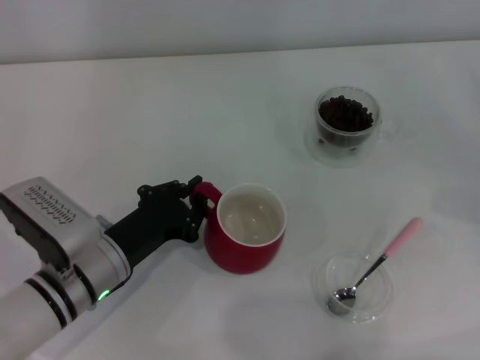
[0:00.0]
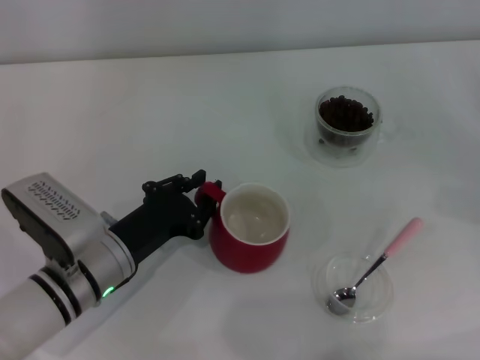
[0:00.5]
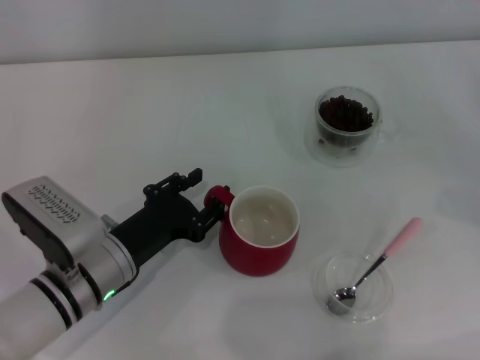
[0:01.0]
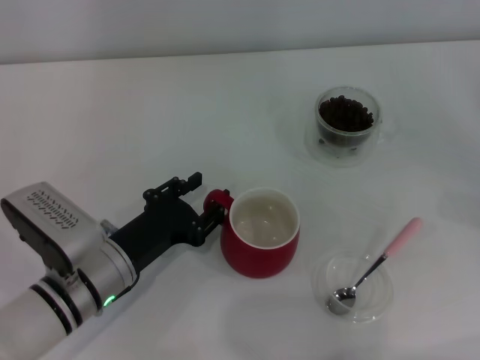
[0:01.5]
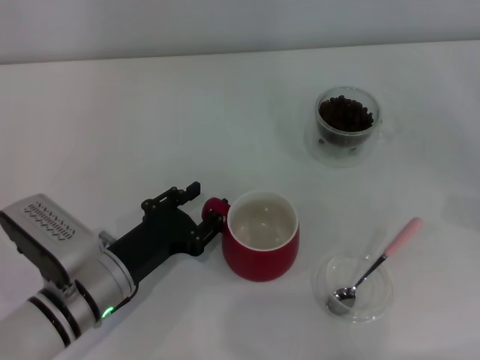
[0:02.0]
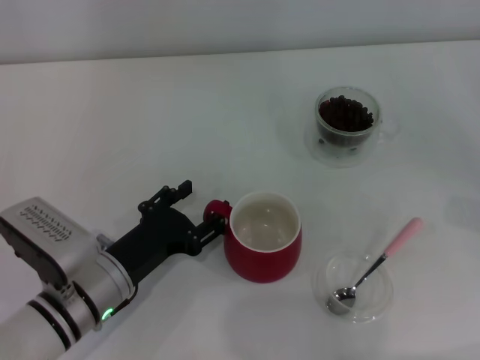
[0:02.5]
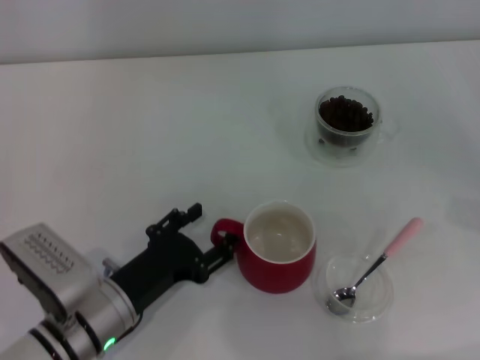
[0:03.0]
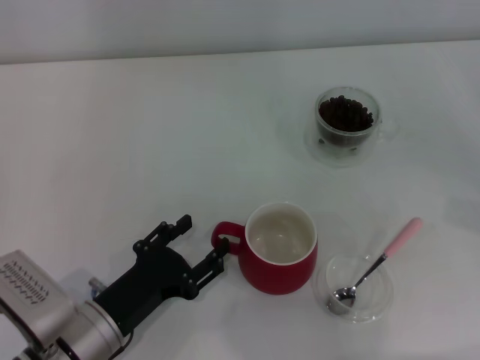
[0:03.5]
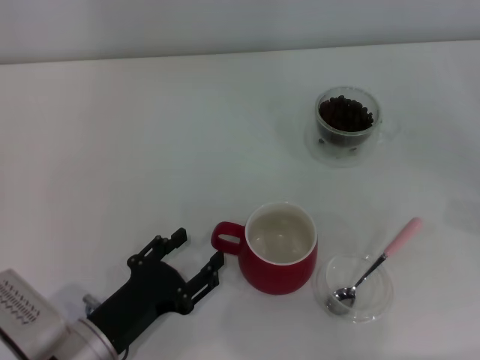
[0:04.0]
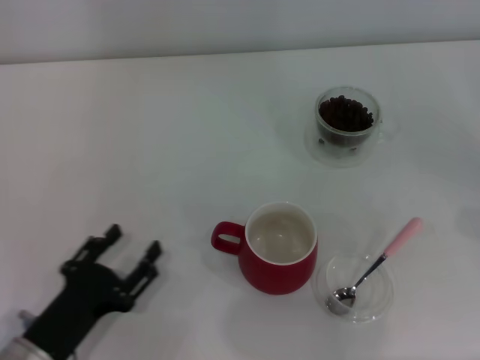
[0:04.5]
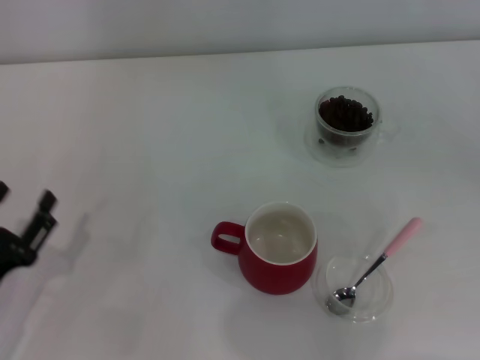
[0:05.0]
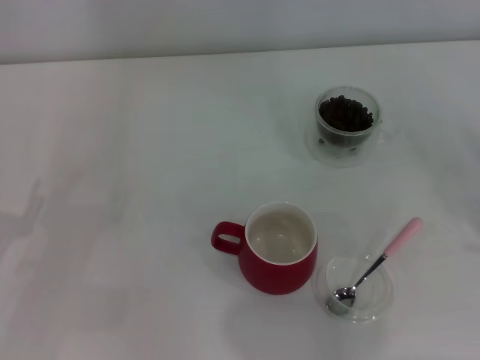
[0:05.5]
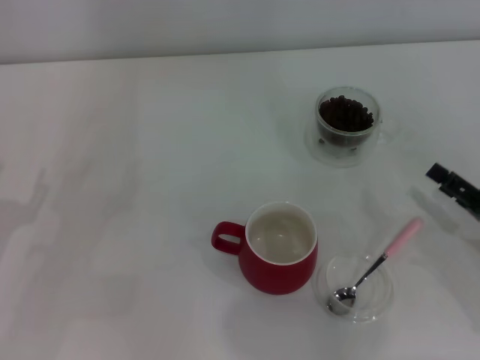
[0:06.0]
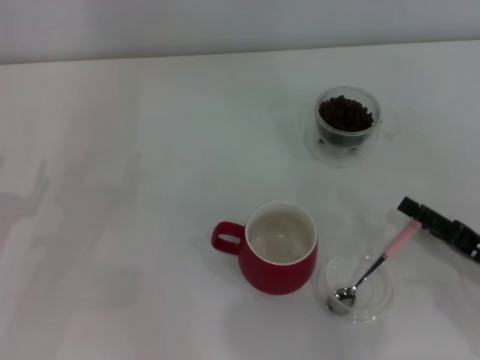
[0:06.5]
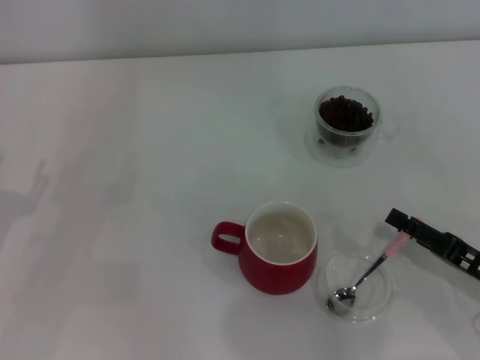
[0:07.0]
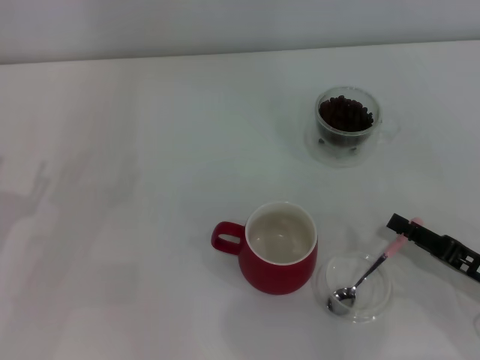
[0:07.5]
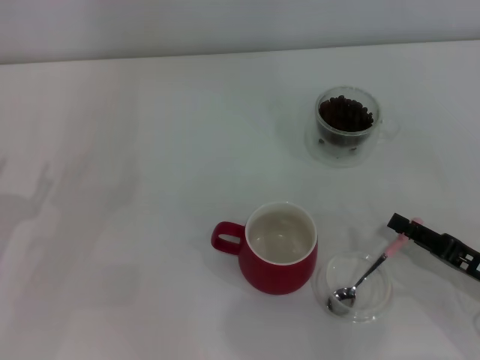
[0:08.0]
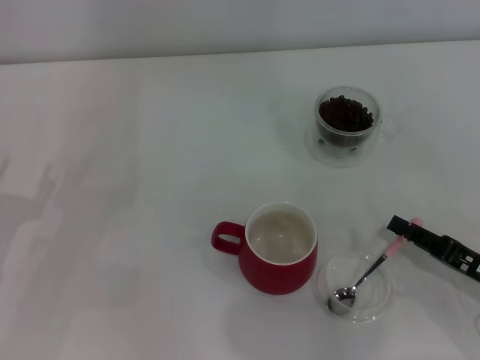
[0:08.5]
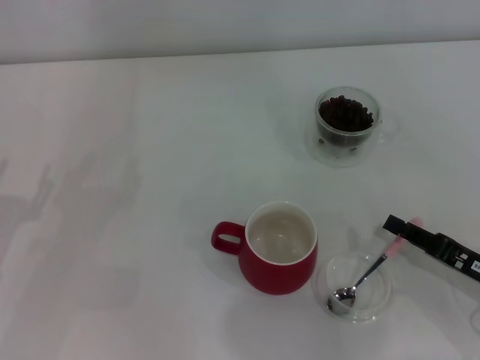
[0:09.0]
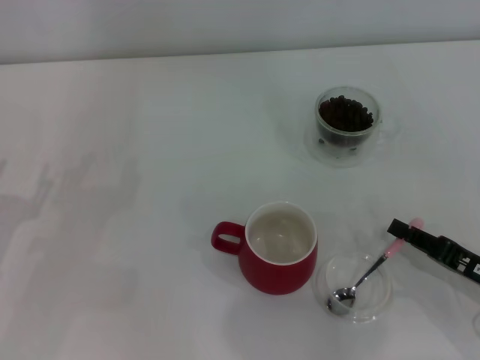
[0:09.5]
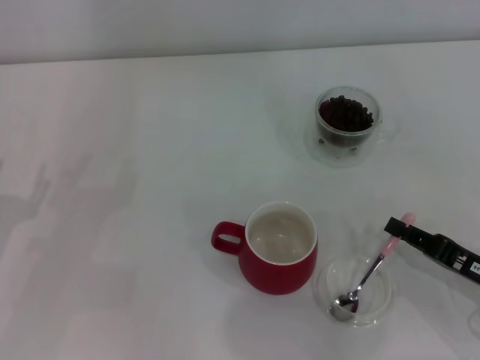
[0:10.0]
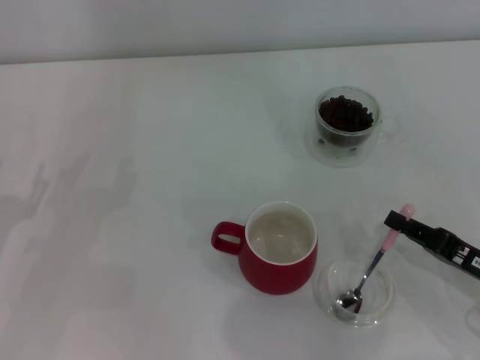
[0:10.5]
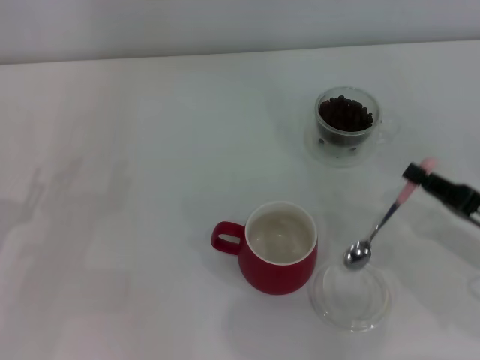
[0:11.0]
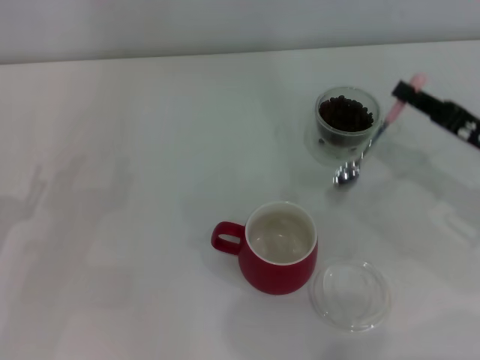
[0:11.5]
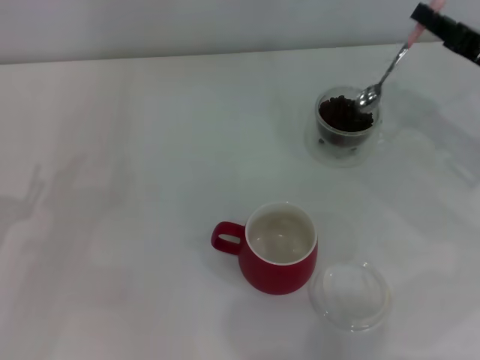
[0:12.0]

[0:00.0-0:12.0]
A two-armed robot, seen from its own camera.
Task of the whole recording: Use a pink spoon to take out the coffee beans from the glass and pour them into the red cup.
Step, 0:00.0 to 0:04.0: Move the cup to the center of view with the left gripper.
Step, 0:04.5 to 0:10.5: Pick up the spoon with the right gripper.
0:00.0 to 0:02.0: The left gripper opens up.
0:02.0 to 0:04.0: The left gripper travels backward by about 5 cm.
0:04.0 to 0:06.0: The left gripper heads to the left, covering about 15 cm; the right gripper moves to the left and backward, some 10 cm.
0:06.0 to 0:08.0: The grippers move only a little.
0:08.0 to 0:10.0: The right gripper closes up.
0:10.0 to 0:12.0: The right gripper heads forward and upward, covering some 20 cm.

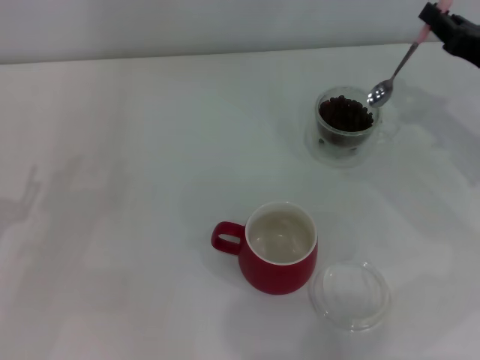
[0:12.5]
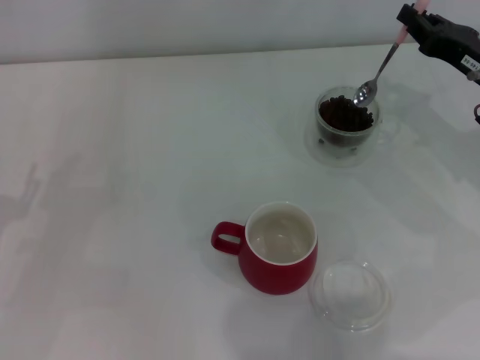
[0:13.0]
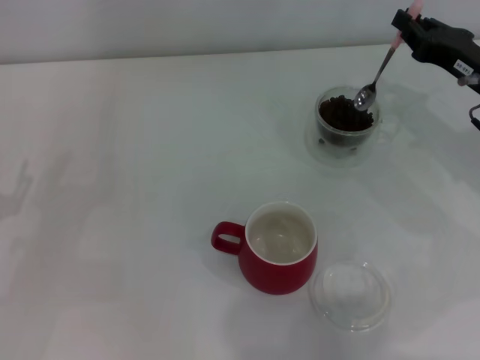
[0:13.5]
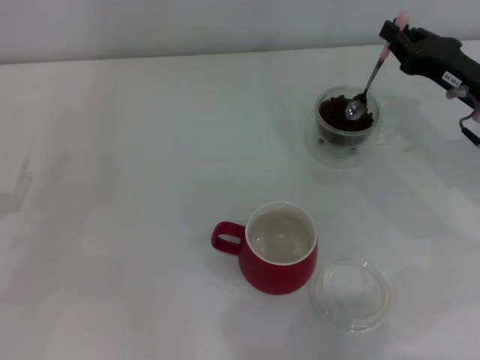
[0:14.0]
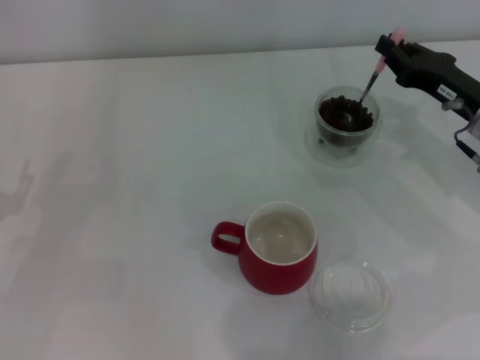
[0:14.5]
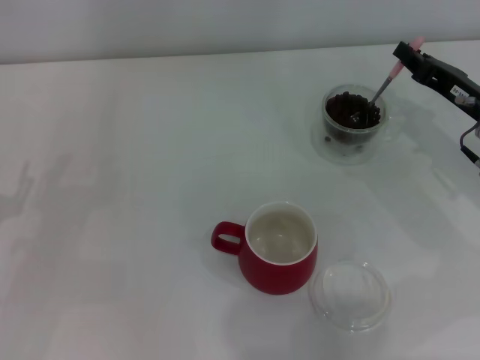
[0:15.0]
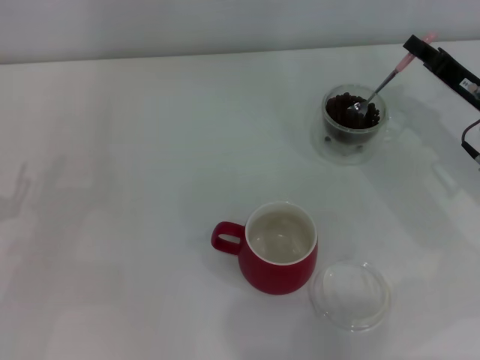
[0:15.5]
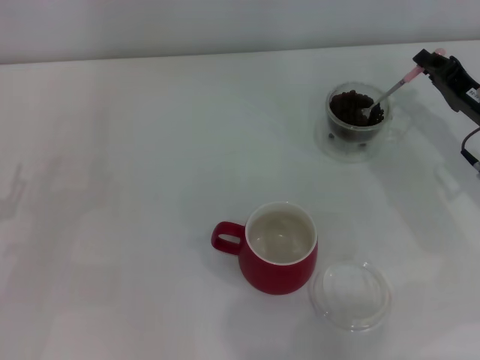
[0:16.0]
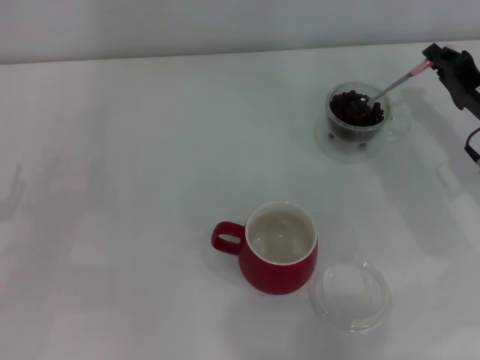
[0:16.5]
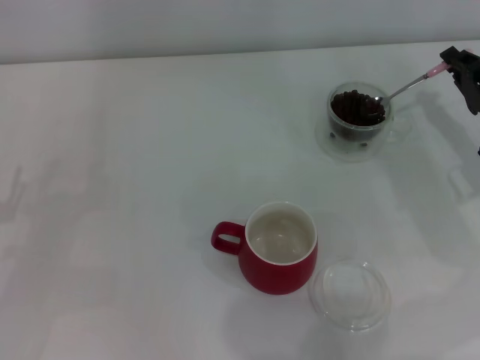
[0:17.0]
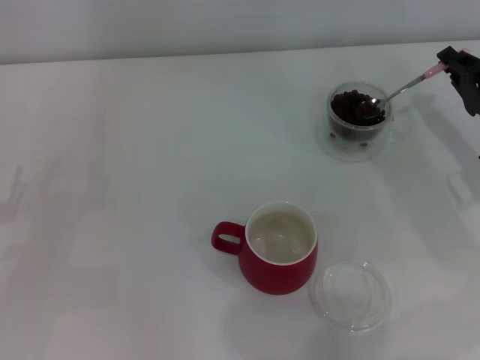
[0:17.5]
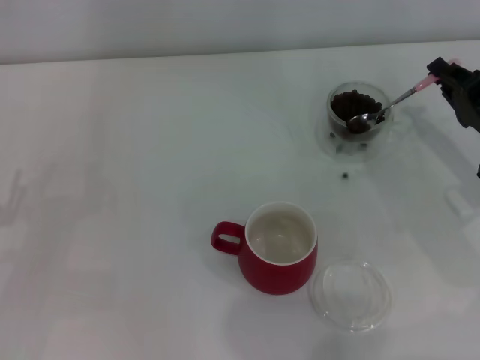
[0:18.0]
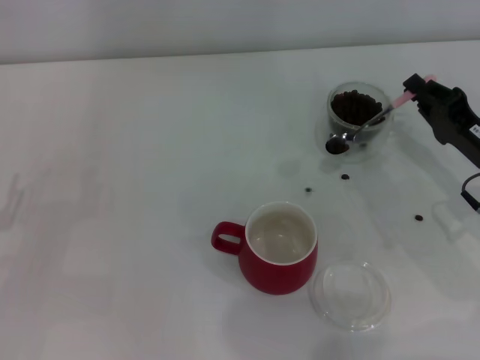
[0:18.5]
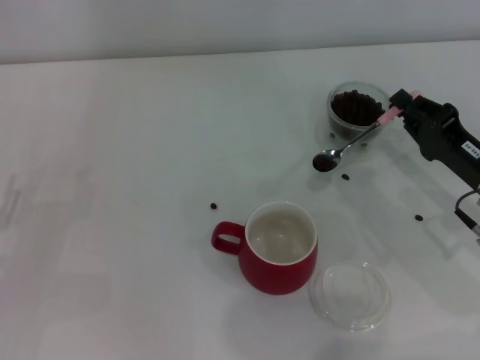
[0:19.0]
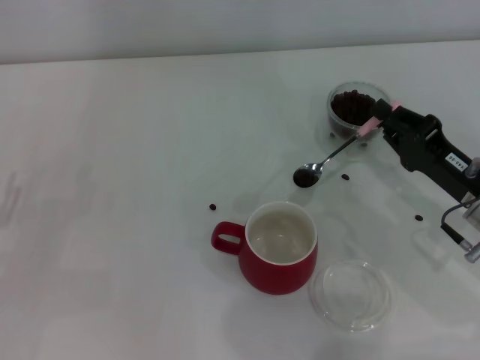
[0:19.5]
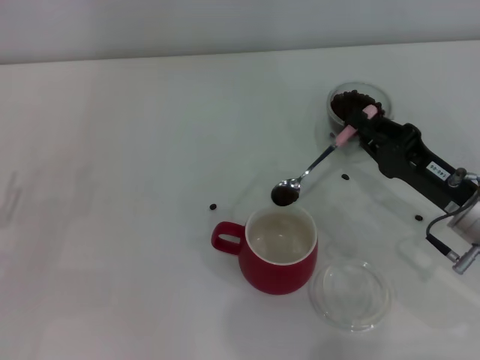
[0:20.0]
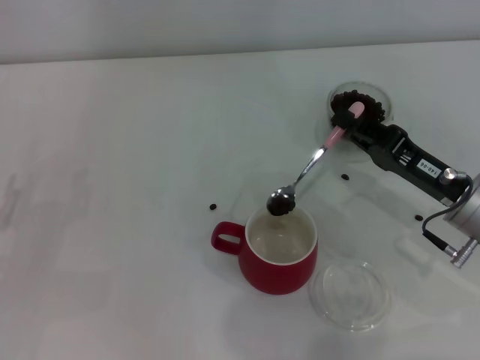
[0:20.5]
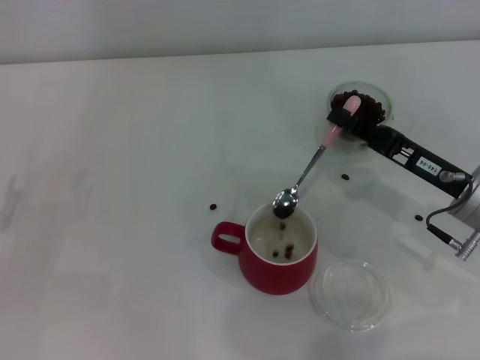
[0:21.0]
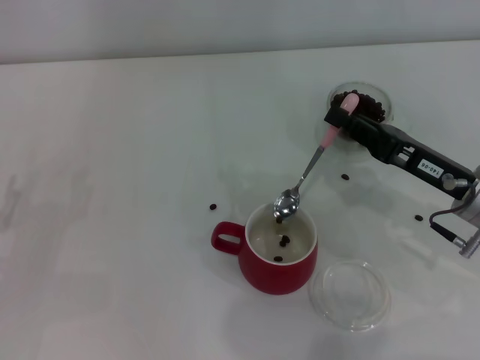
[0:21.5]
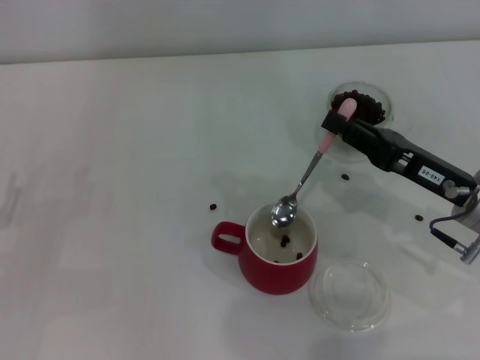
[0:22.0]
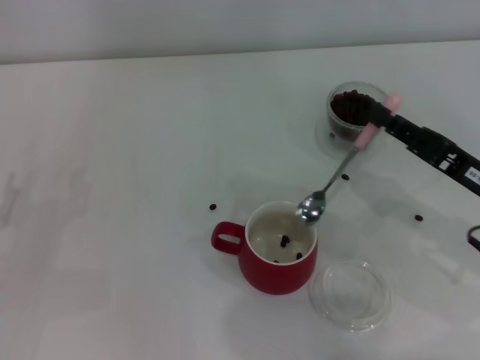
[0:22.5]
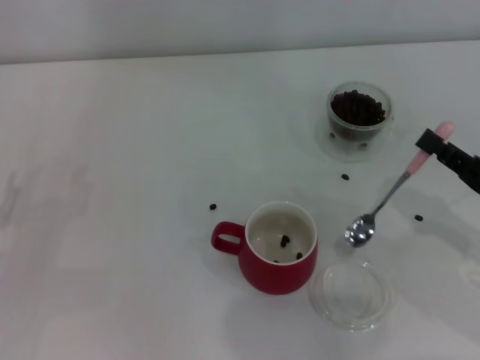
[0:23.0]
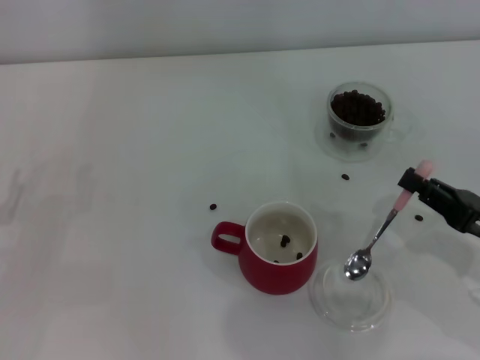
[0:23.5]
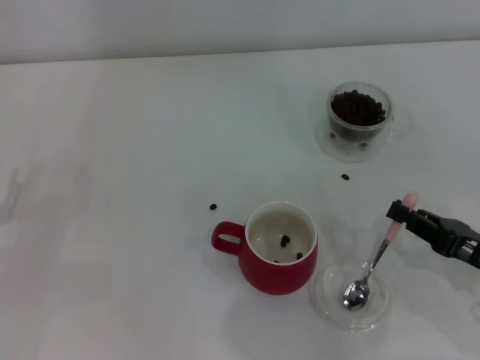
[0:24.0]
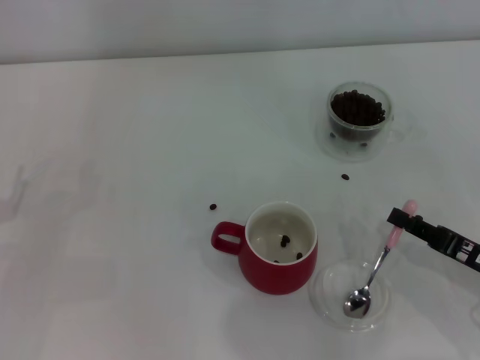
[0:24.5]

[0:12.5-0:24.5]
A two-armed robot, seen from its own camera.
Task of the whole recording: Use a pink spoon to take out the coffee beans from the glass and pour them into the red cup.
Step, 0:12.5 to 0:21.5: Scoop a spoonful of beans into the cup with the right gripper.
0:12.5 to 0:14.5: The grippers stay close to where they were, moving slightly.
0:16.5 to 0:18.5: The right gripper shifts by roughly 5 cm.
0:18.5 to 0:20.5: The right gripper changes place by approximately 5 cm.
0:22.5 to 0:24.5: The right gripper shifts approximately 10 cm backward and downward.

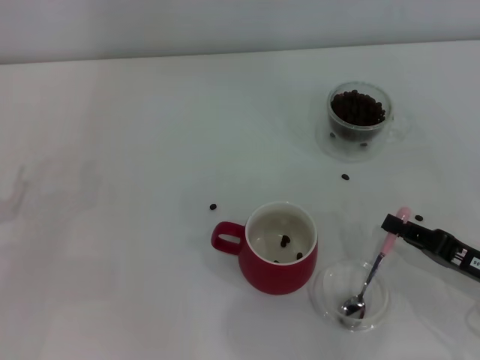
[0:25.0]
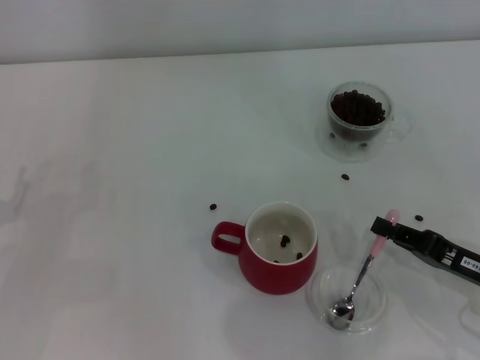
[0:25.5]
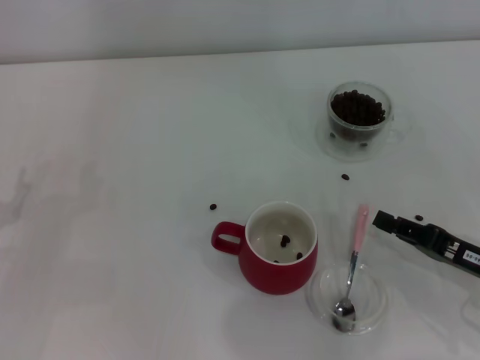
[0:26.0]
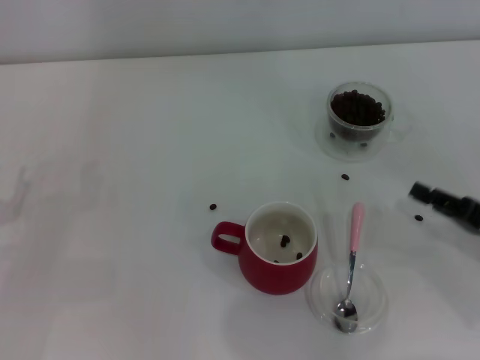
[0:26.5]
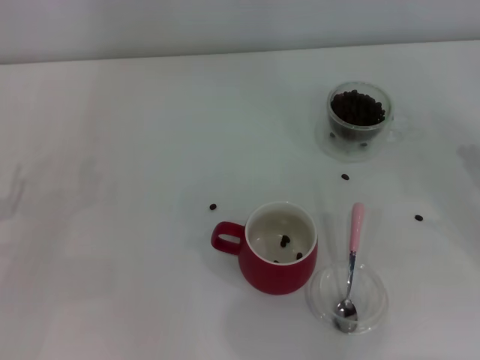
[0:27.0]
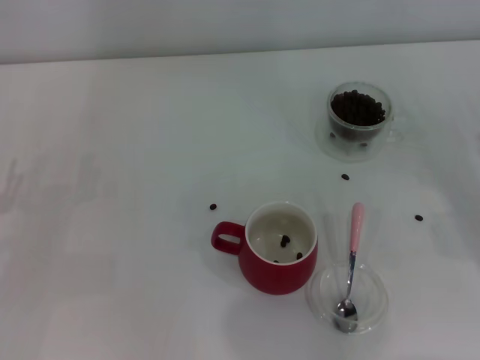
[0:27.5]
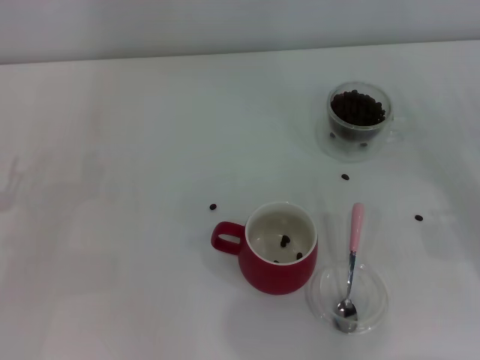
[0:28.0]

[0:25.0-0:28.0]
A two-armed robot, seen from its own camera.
Task of the whole recording: Use a pink spoon to take out the coffee beans from the glass and pour them into the red cup.
0:25.0 to 0:26.5: The grippers make only small movements.
